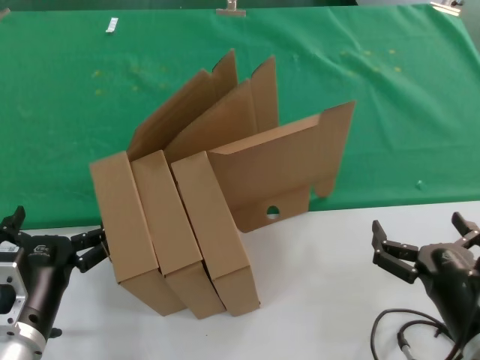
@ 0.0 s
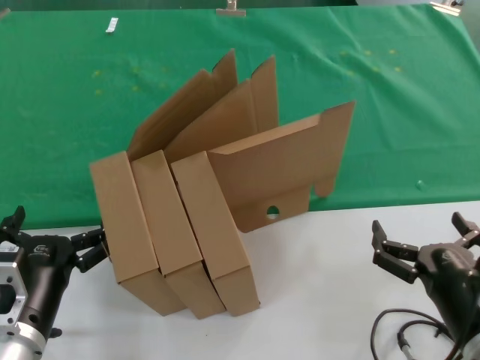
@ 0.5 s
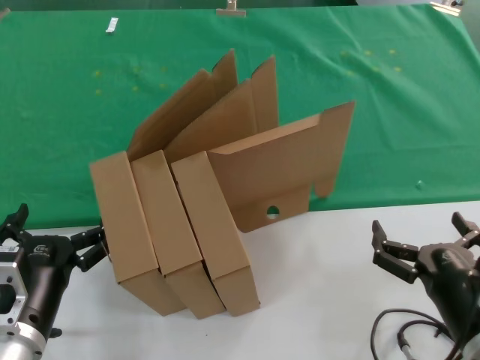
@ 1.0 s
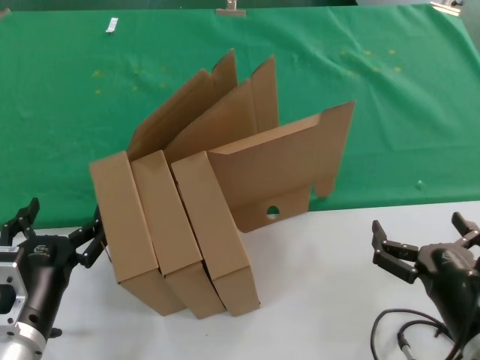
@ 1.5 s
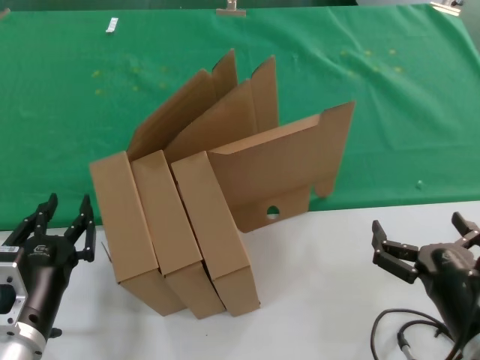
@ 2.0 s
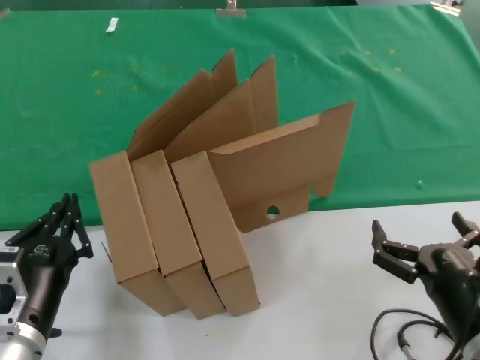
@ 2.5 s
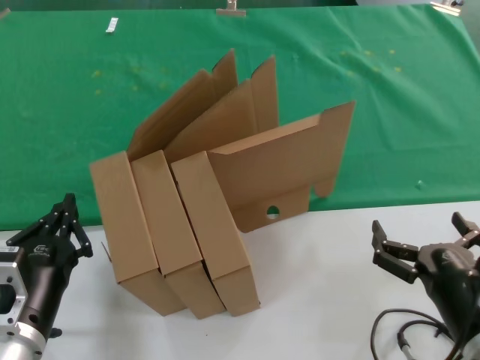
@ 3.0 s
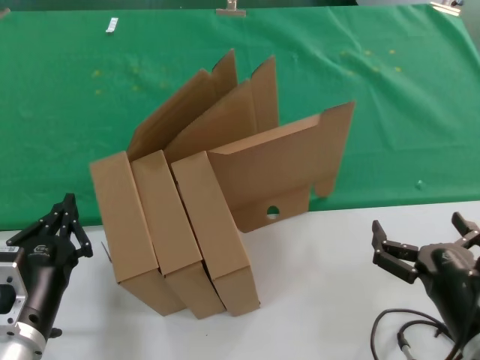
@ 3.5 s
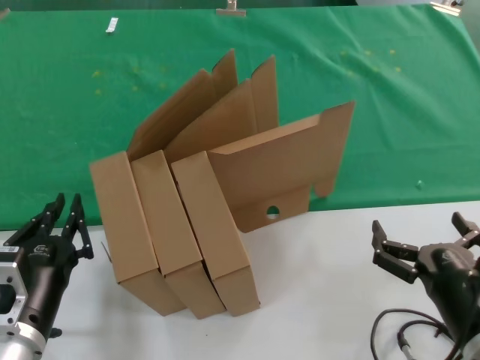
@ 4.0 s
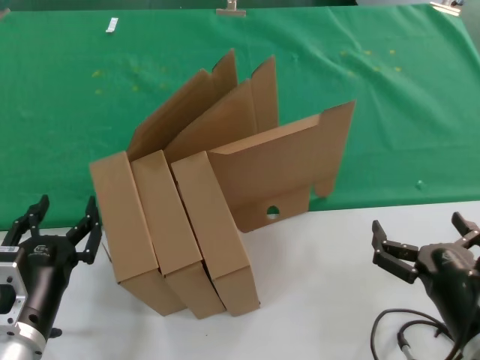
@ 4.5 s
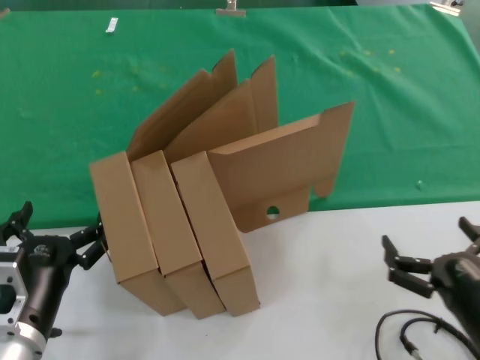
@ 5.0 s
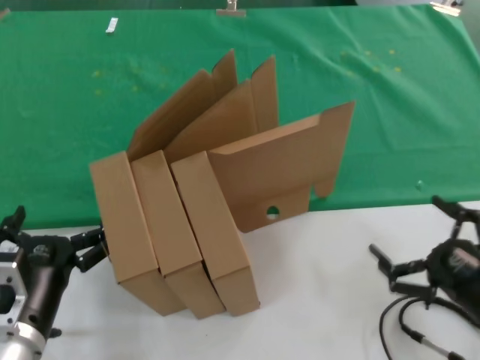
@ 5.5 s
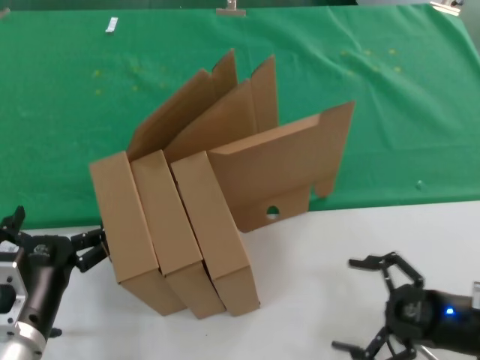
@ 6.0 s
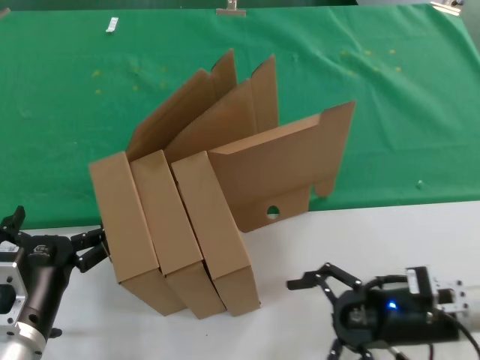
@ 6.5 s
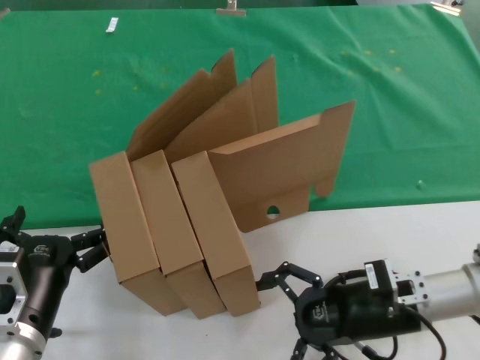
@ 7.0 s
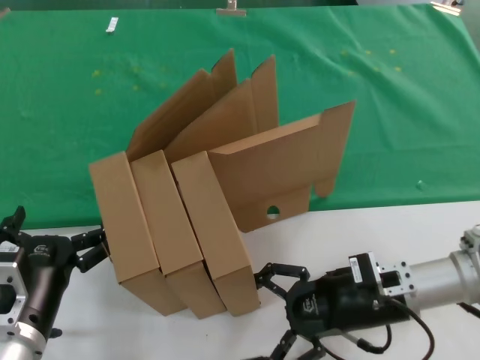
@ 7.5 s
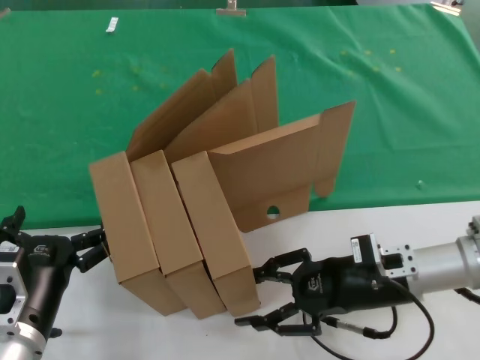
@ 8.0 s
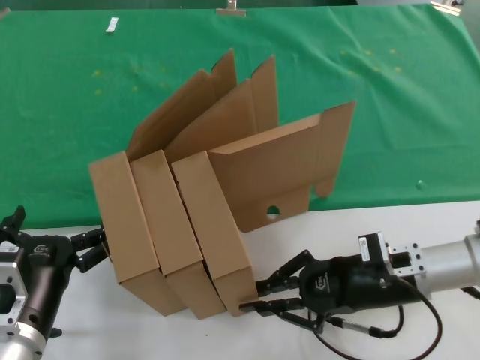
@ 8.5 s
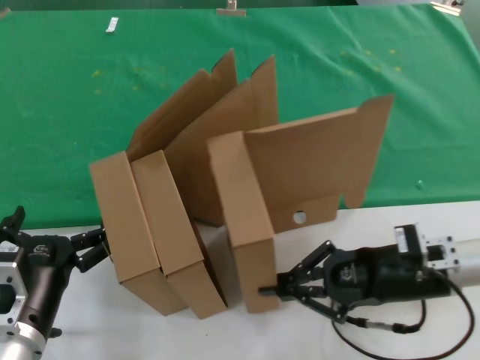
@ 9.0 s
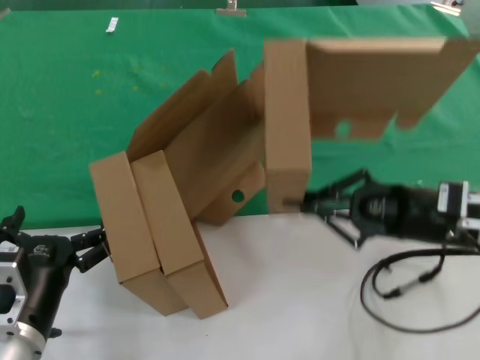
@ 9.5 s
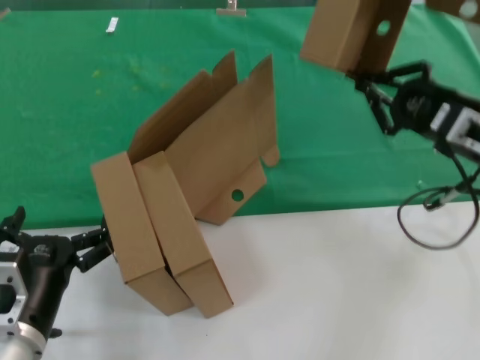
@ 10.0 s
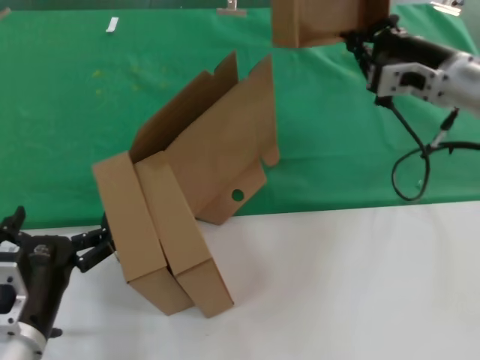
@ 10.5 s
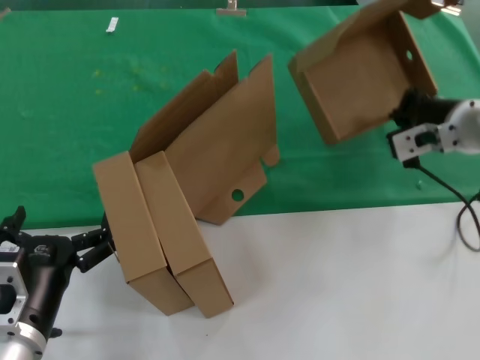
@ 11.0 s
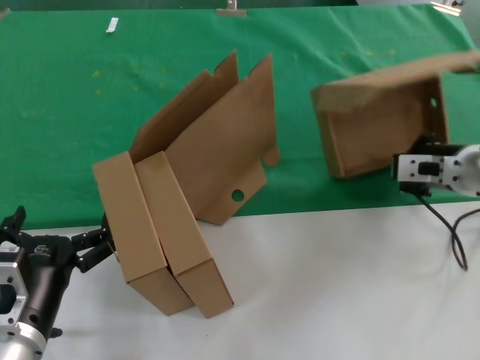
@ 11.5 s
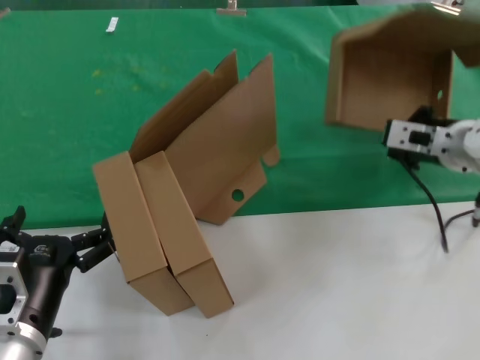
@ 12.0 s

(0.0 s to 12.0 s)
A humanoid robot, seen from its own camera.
Task of the whole recording: pick up the paper box and put it at the back.
Step, 0.0 s - 8.5 s: Grasp the paper box.
0.0 s - 4.0 s: Both hands stay put.
4.0 s - 6.0 s: The right hand travels to the right and forward by some 15 cm.
6.0 s - 8.0 s: The right hand moves to the left, forward and upward, approximately 15 cm.
8.0 s - 10.0 s: The right hand travels upward and to the right by approximately 15 cm.
10.0 s - 12.0 s: The right hand heads forward, covering roughly 10 cm, and travels upward and back again, some 5 cm each way.

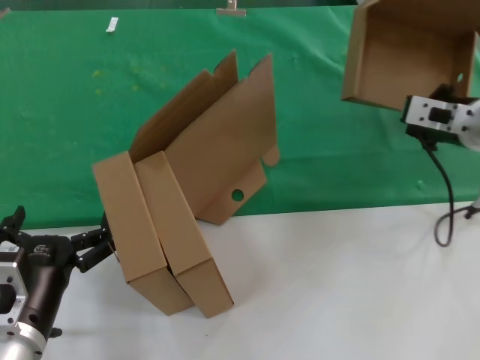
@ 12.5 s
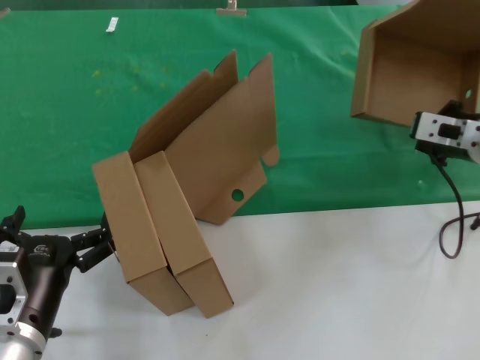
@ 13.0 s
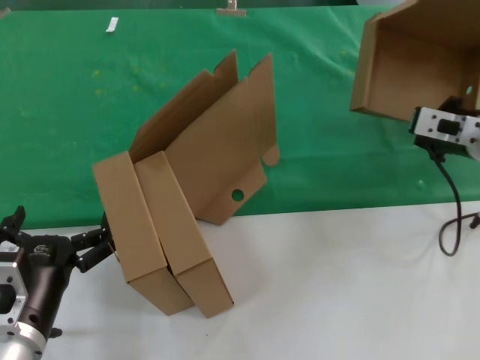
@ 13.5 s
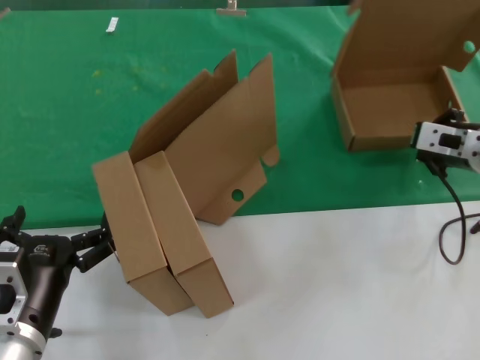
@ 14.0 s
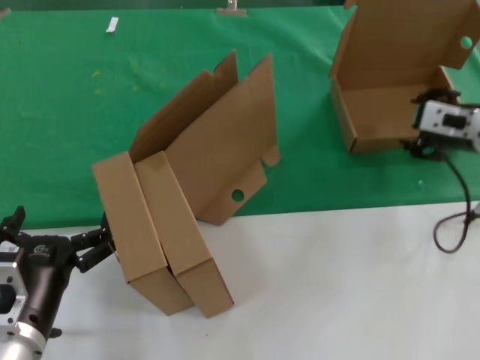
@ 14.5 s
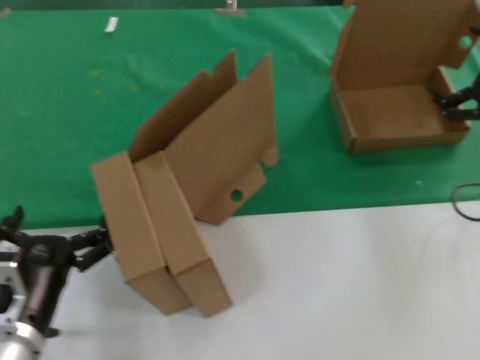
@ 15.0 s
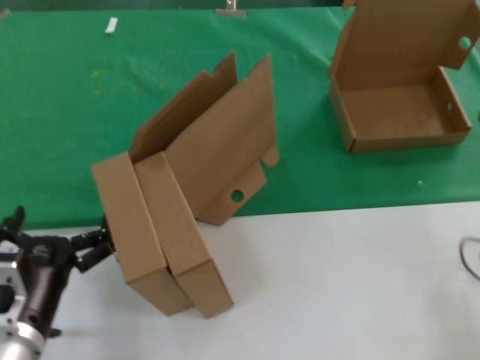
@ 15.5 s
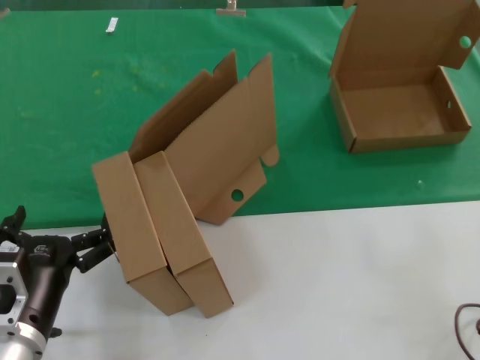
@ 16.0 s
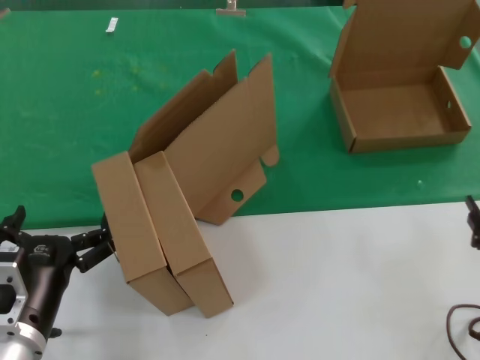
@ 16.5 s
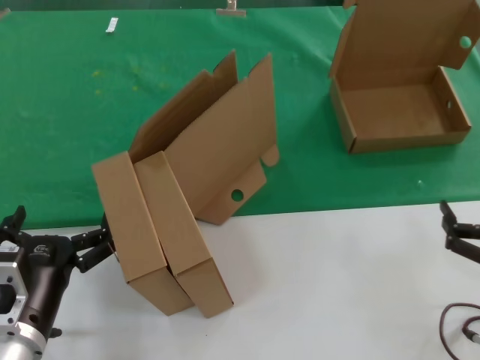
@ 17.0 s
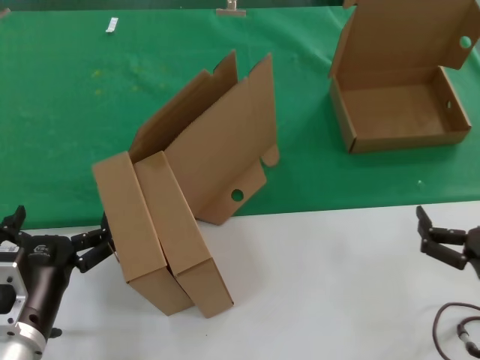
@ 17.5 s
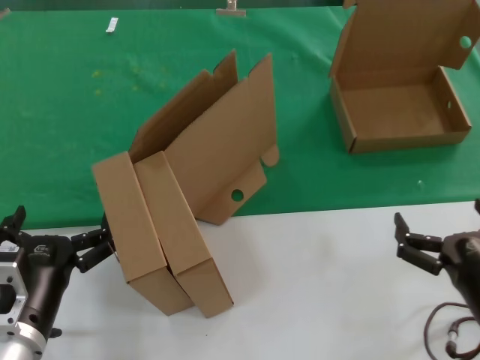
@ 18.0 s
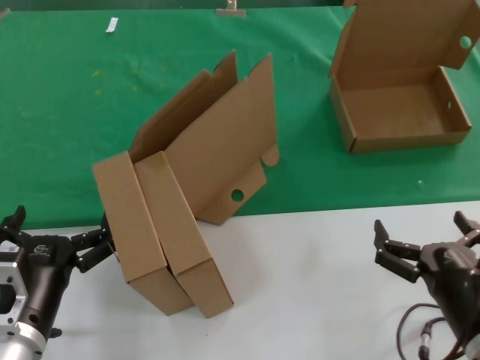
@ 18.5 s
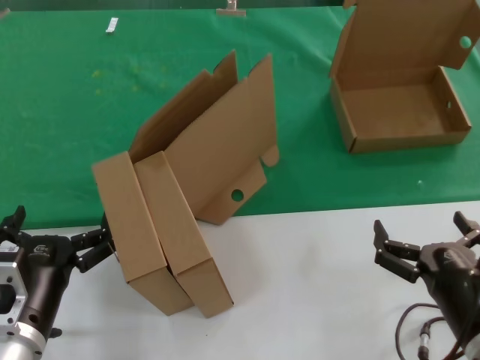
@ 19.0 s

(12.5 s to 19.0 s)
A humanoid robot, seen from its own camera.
Task of the whole recording: pick up the paper box and put it at the back.
12.5 s - 14.5 s: The hands make only small movements.
14.5 s - 17.0 s: The right hand heads backward and downward, covering some 30 cm.
17.0 s - 19.0 s: The right hand goes roughly 10 cm to the left.
